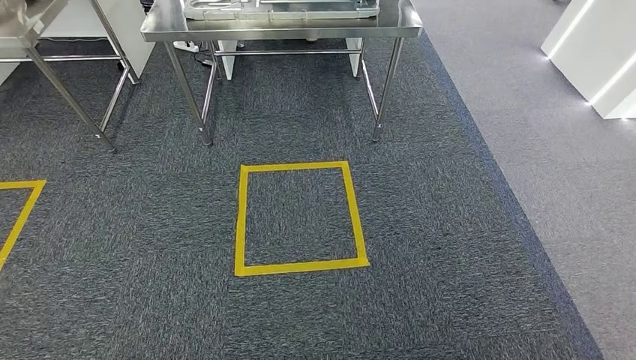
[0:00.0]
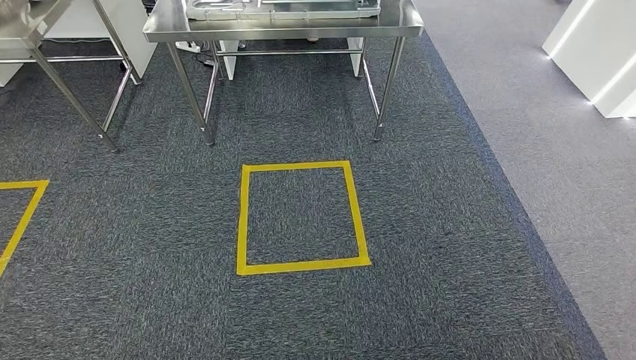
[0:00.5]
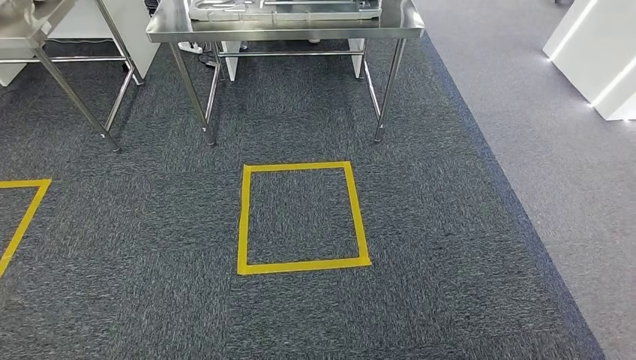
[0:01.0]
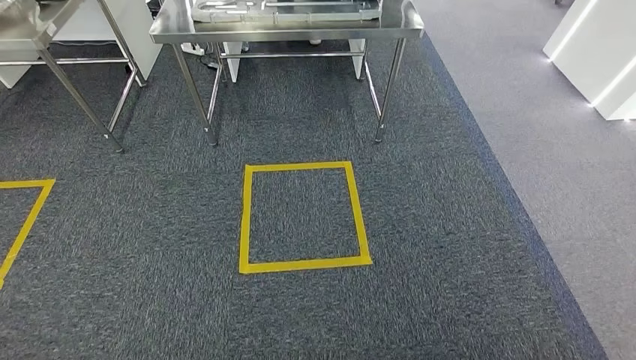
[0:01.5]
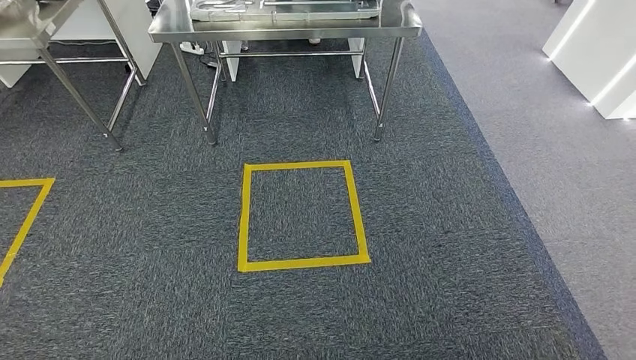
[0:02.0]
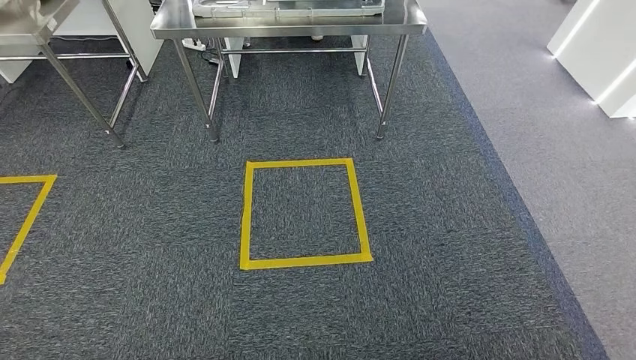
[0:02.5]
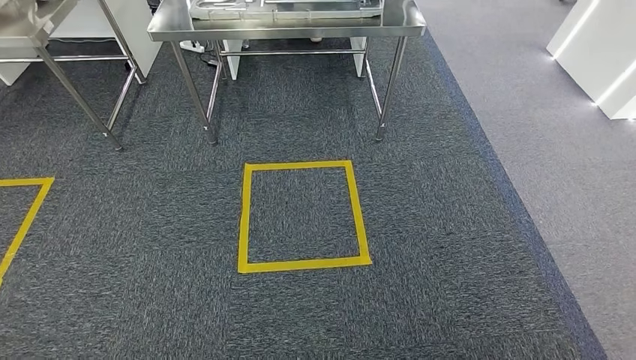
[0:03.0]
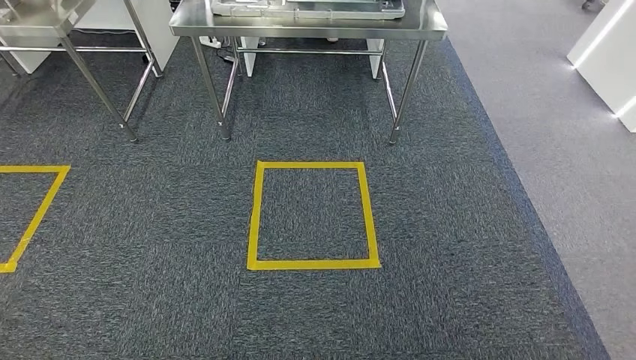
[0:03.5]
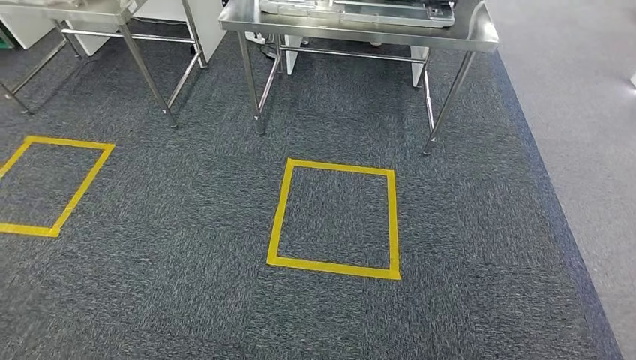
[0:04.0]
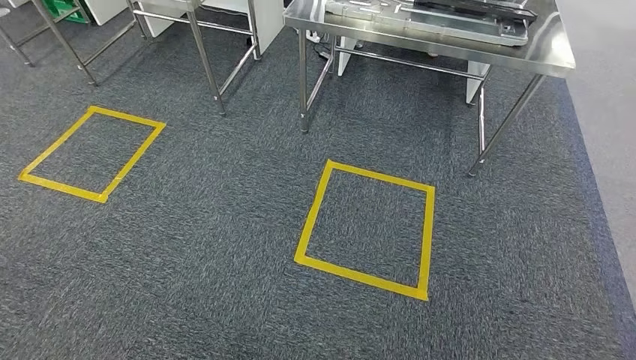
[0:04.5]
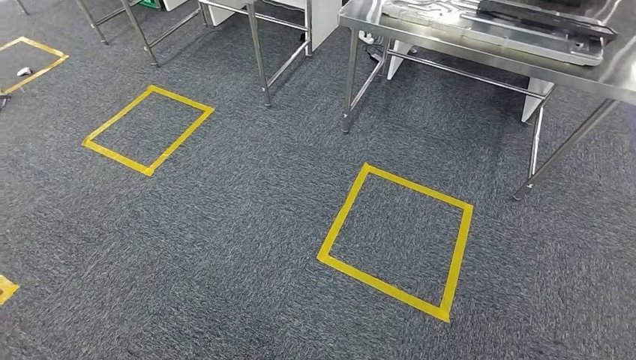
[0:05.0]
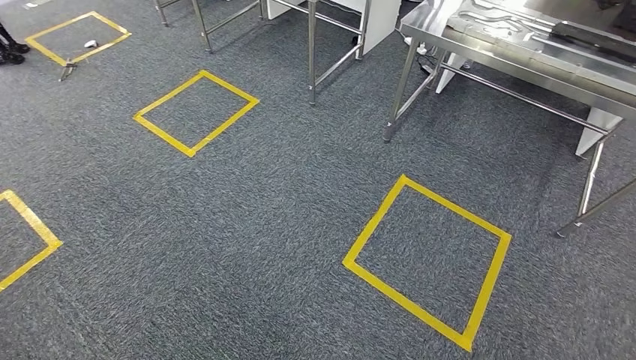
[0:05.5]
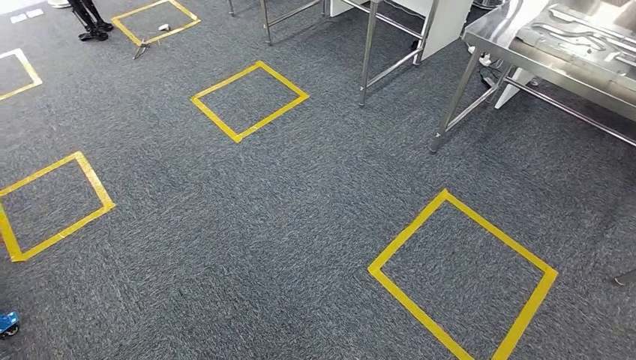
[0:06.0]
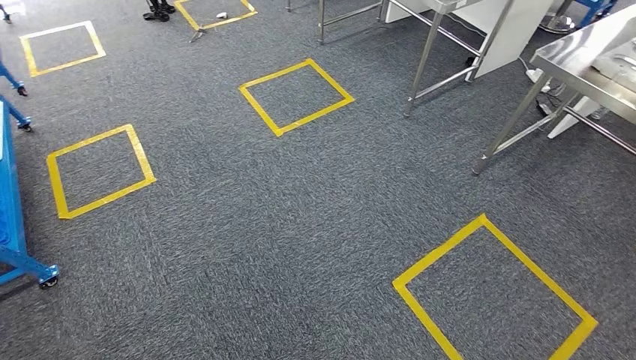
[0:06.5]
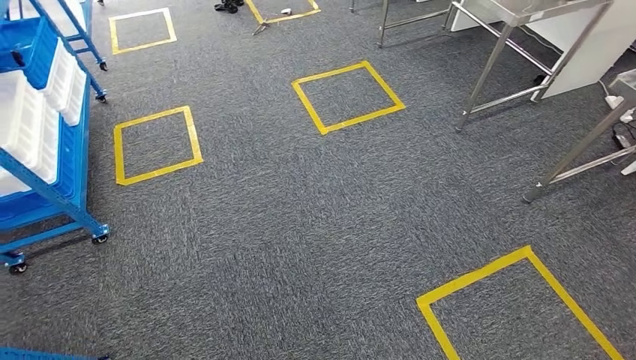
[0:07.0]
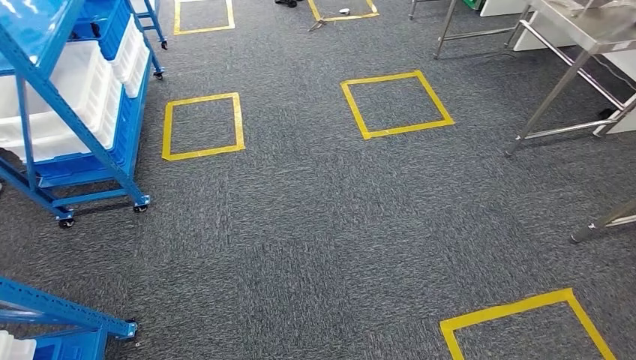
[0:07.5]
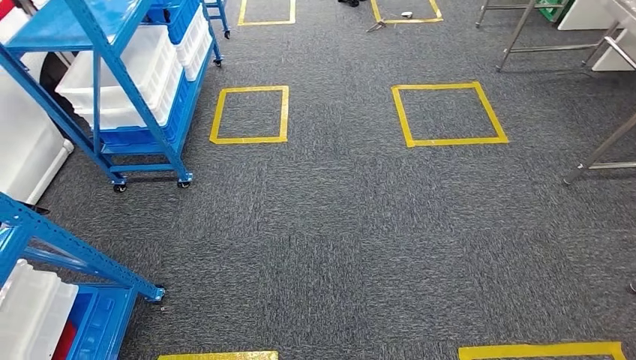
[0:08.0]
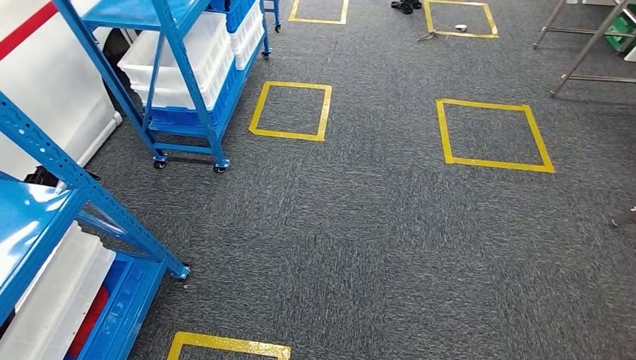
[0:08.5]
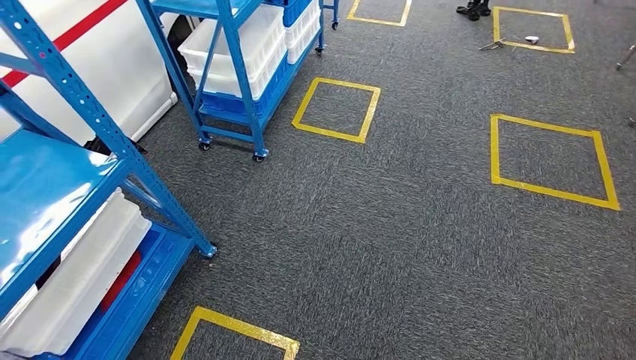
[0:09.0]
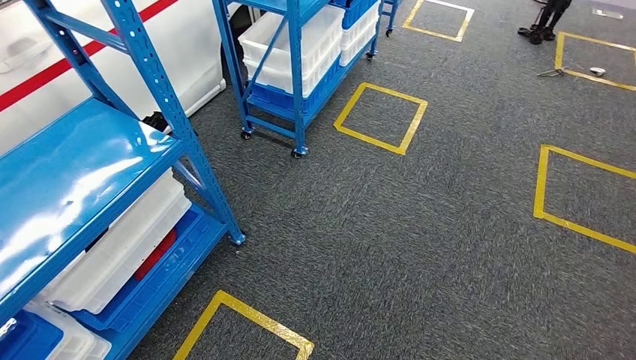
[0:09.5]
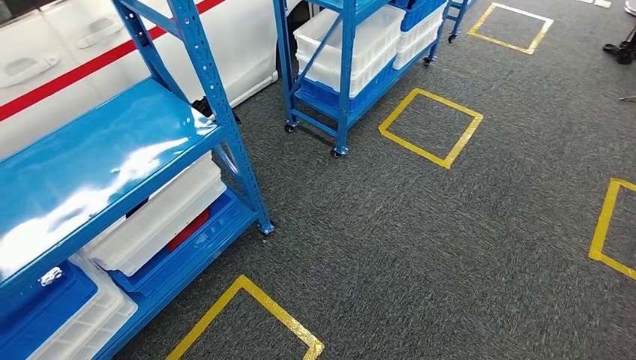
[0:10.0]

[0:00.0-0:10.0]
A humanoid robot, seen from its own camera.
0:00.0 to 0:02.0: The hands move only a little.

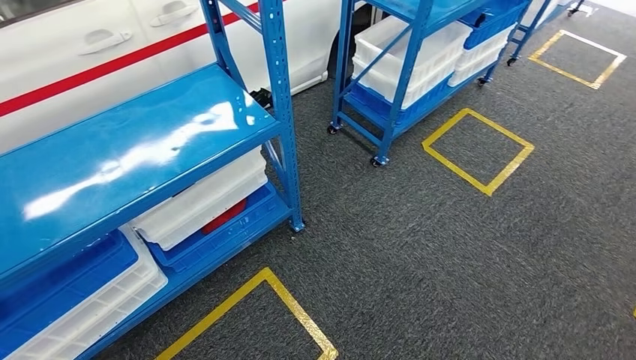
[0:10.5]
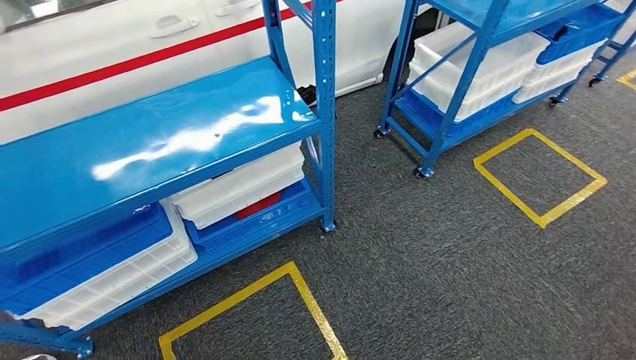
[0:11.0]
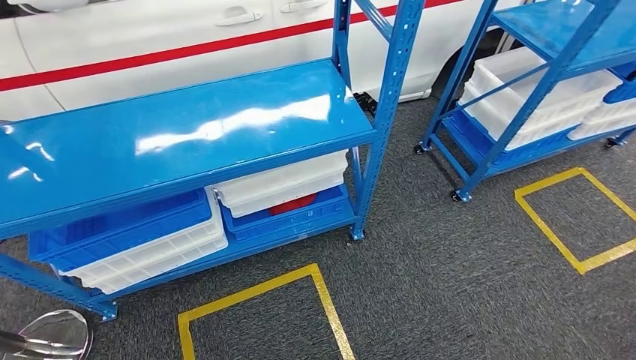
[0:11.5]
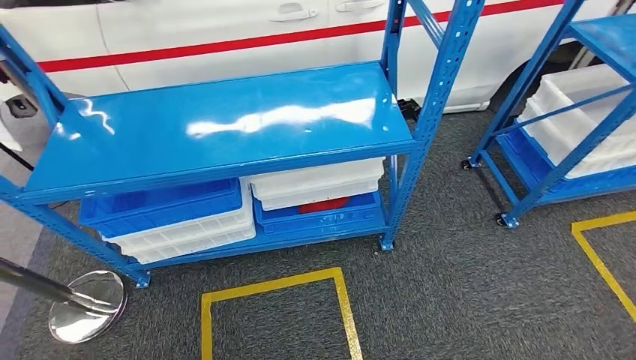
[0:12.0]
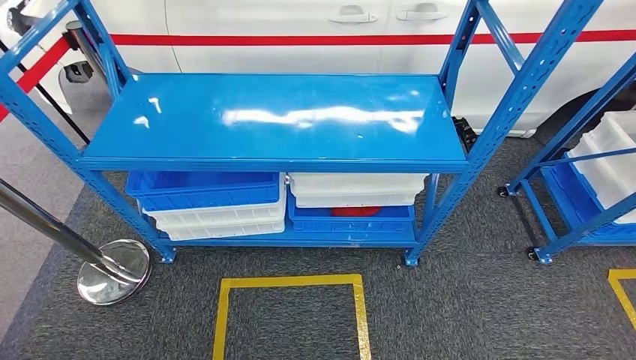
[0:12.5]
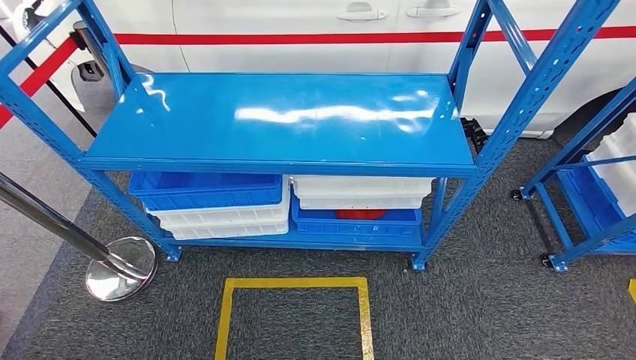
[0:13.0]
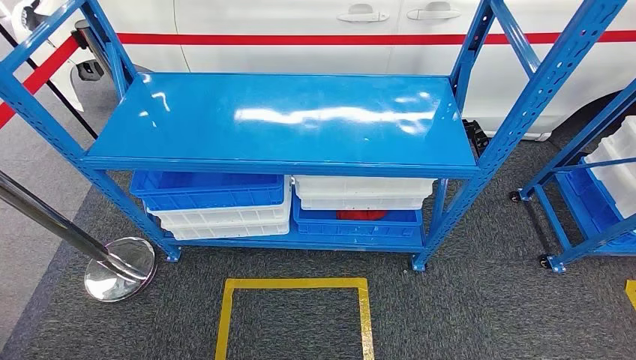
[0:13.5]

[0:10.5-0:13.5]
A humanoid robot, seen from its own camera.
Step, 0:10.5 to 0:13.5: Move to the initial position of the shelf.
